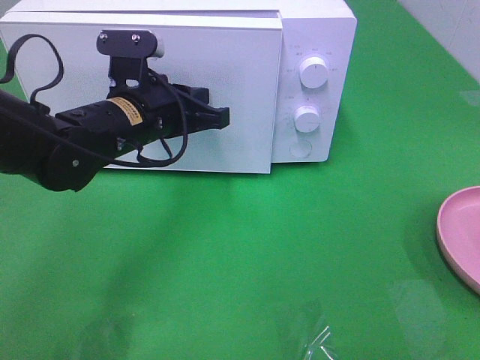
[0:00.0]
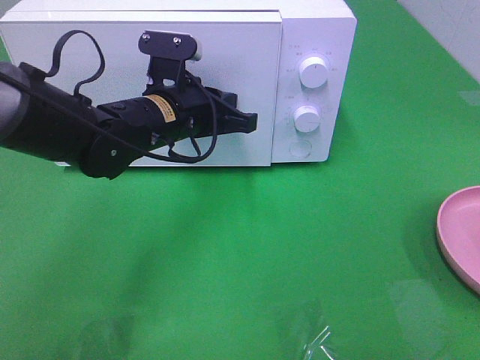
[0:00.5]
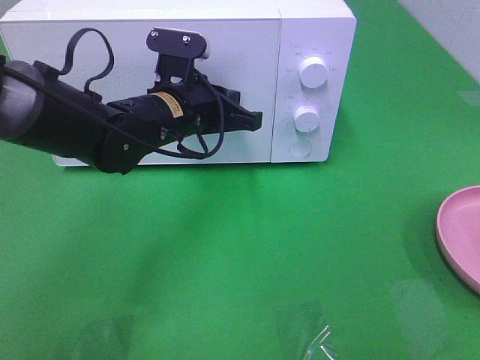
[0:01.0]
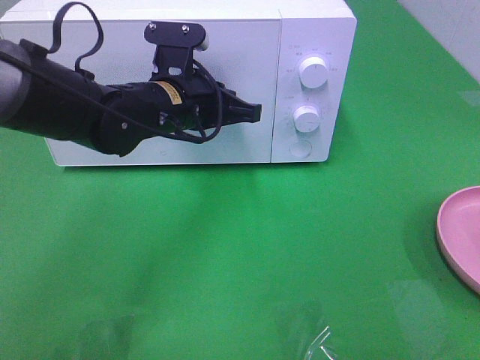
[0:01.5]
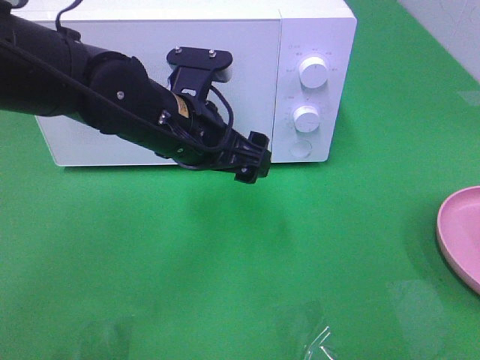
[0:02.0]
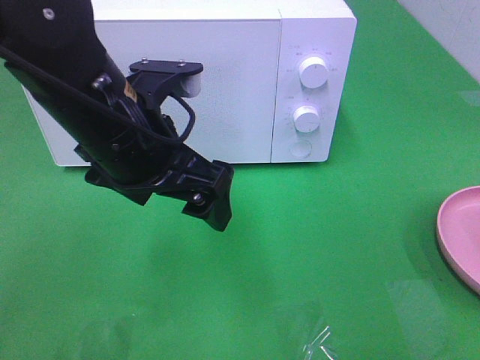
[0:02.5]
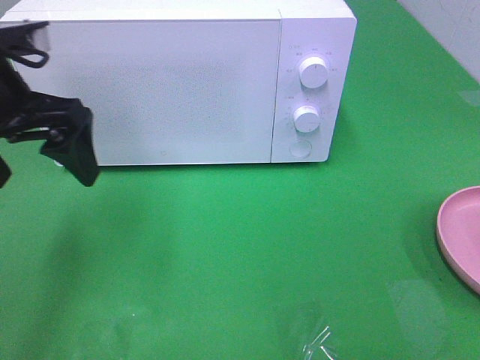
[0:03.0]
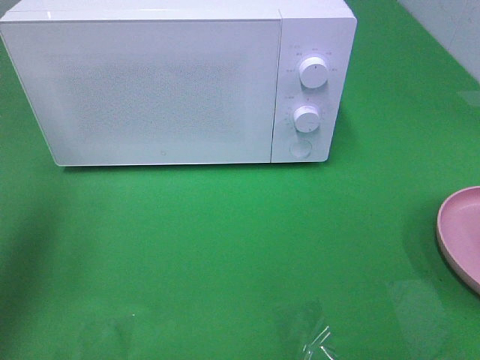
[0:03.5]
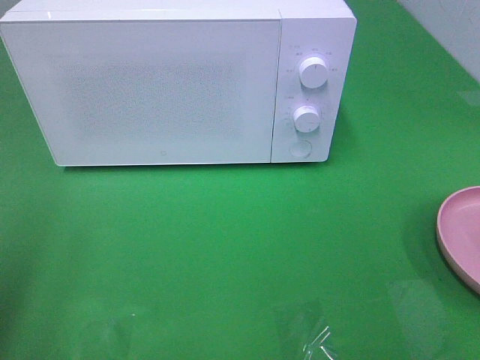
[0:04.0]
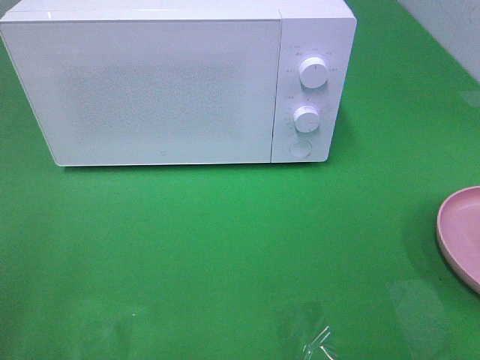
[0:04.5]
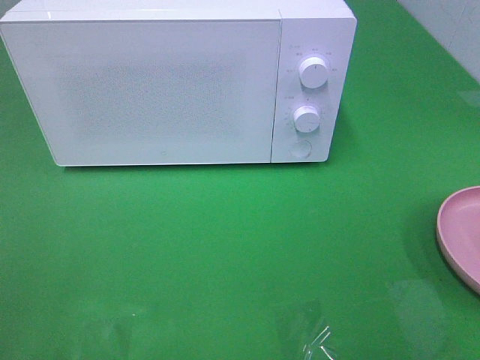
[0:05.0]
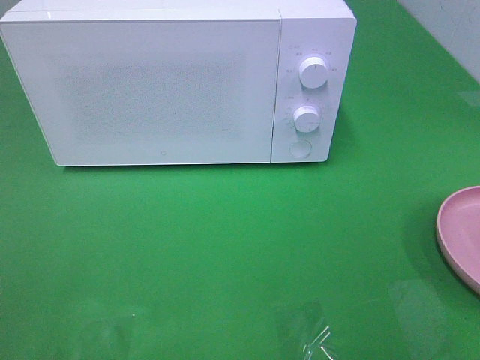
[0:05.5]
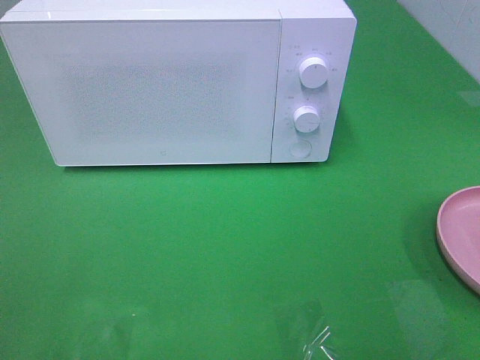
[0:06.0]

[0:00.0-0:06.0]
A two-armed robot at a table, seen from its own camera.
Task of the whole recording: Heat the burger.
0:00.0 to 0:02.0: The left gripper moves roughly 5 cm, and opens its fingers.
0:02.0 to 0:04.0: The left gripper heads to the left and backward, covering approximately 30 cm.

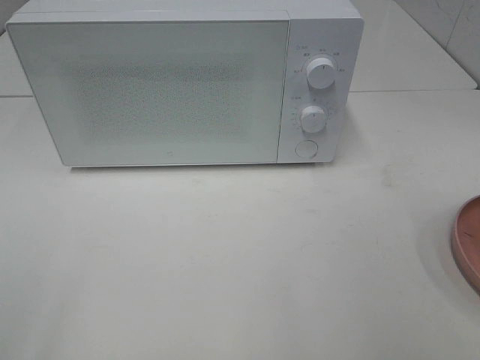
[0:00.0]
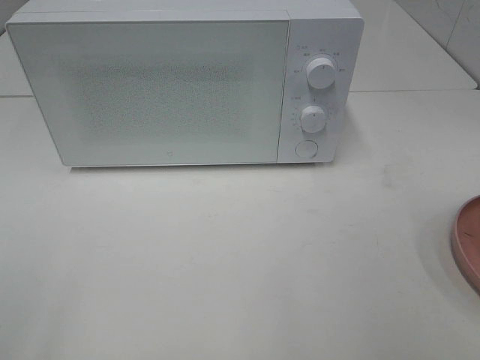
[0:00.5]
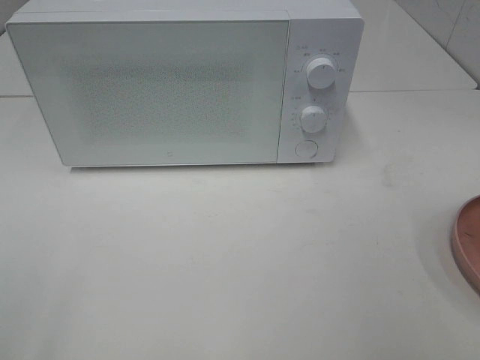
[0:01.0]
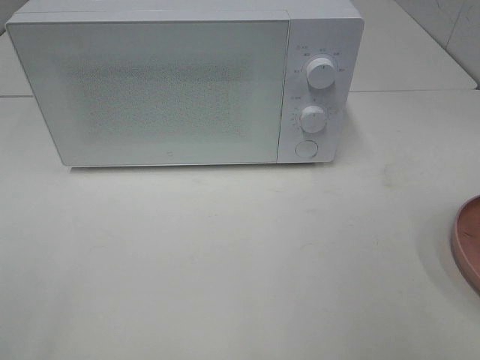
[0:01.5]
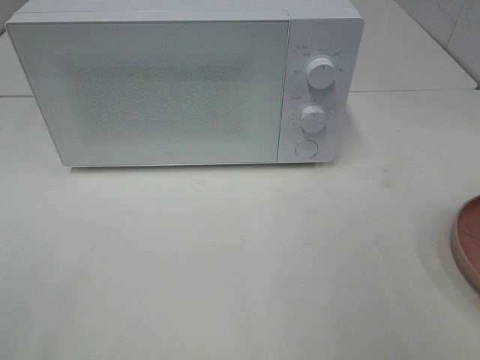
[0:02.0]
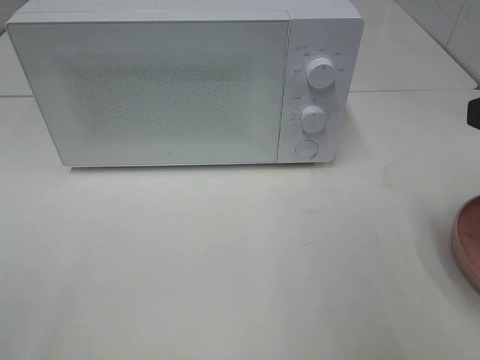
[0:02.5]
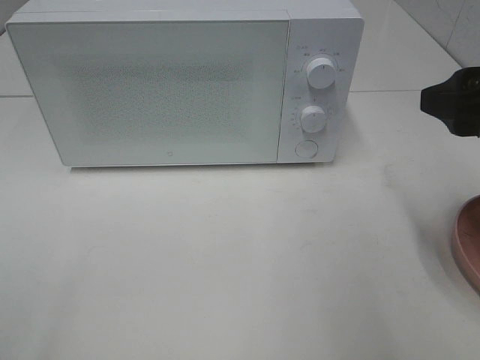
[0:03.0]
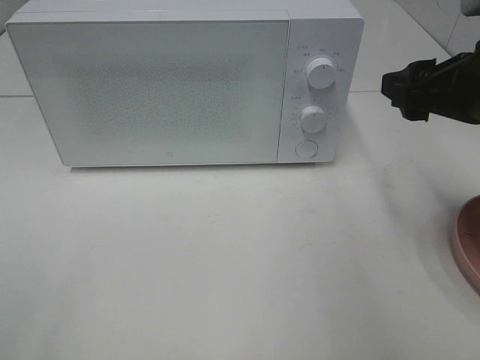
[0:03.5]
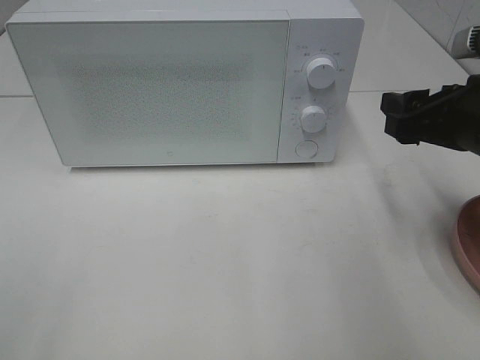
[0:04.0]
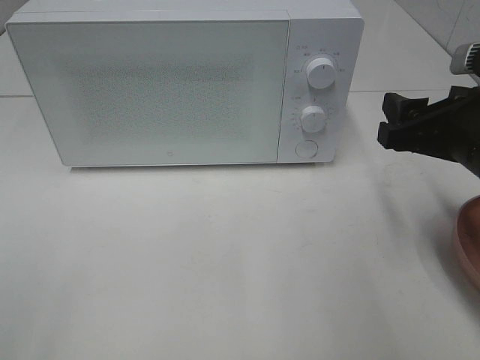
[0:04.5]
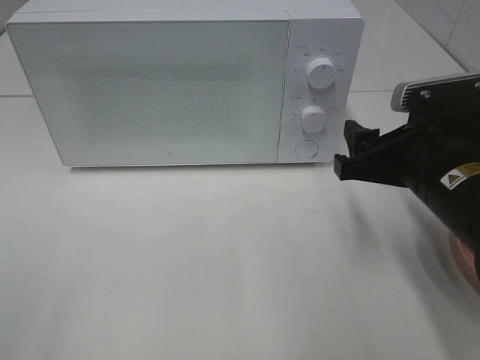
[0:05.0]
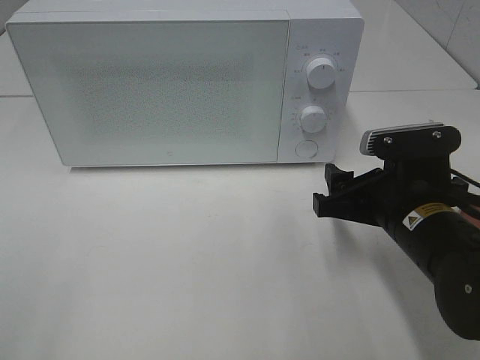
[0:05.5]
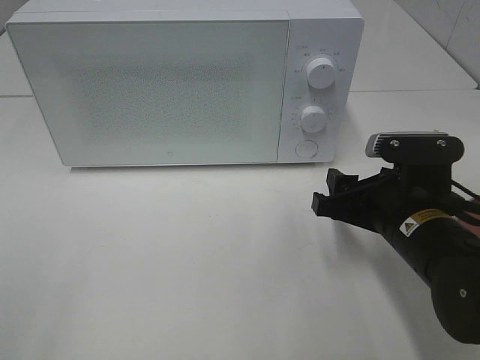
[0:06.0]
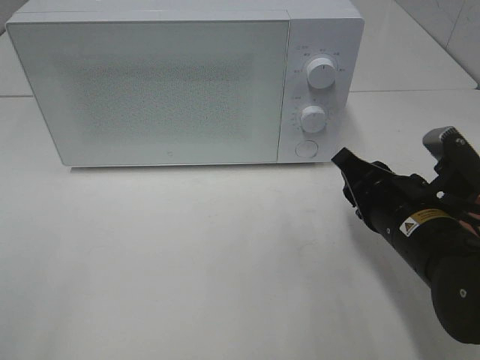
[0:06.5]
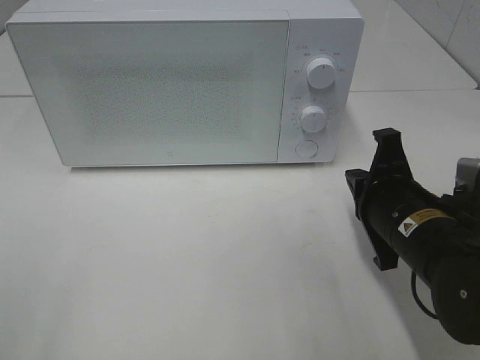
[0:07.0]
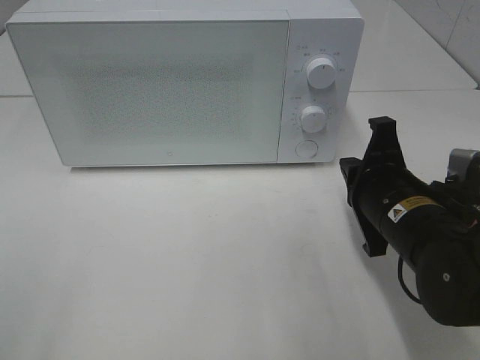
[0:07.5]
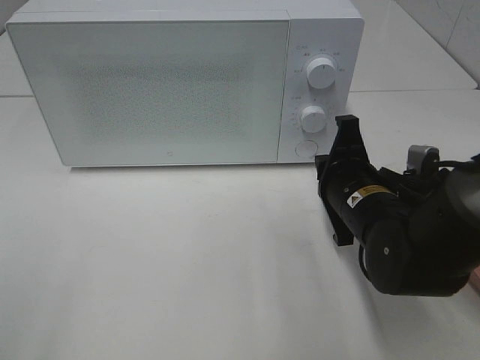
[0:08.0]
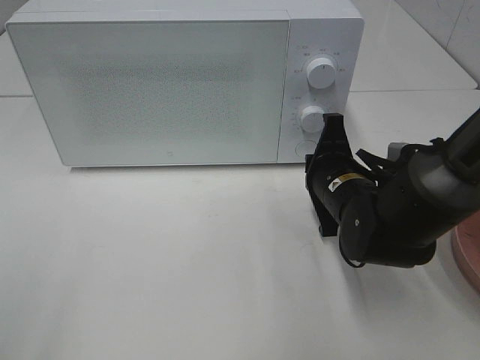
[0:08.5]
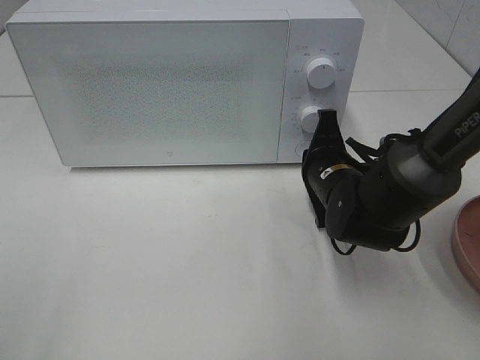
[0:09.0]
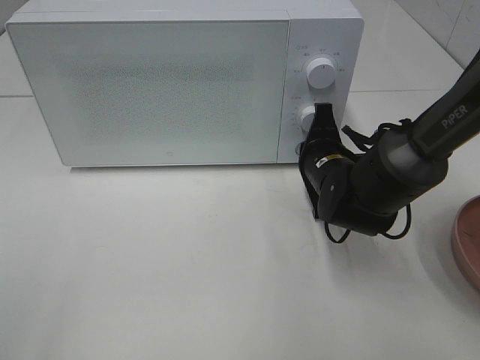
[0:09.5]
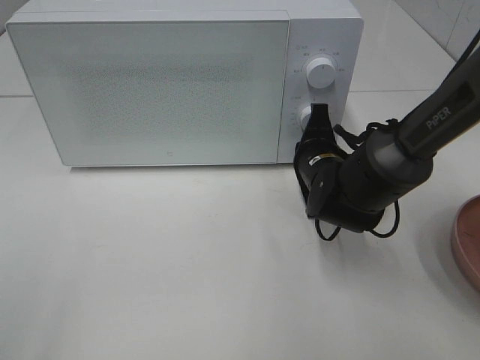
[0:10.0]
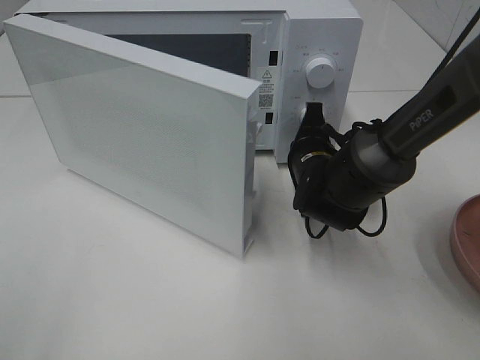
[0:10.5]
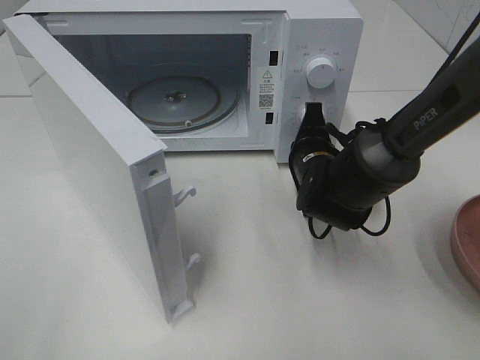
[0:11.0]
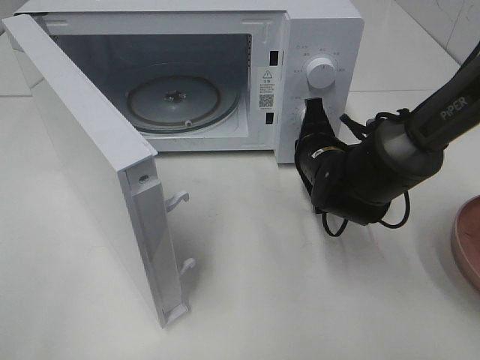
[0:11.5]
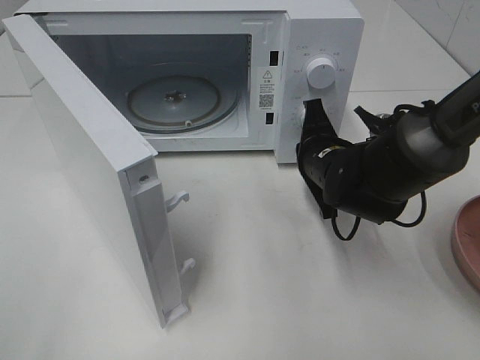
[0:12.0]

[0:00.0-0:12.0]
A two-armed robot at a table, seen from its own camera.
Task of the whole recording: Heat the burger.
0:02.0 to 0:04.0: The right gripper shifts some 15 cm forward and downward.
0:04.0 to 0:06.0: The right gripper heads downward and to the left, covering some 10 cm.
0:06.0 to 0:08.0: The right gripper moves some 5 cm, and closes up.
0:08.0 to 0:10.0: The right gripper shifts about 10 cm forward.

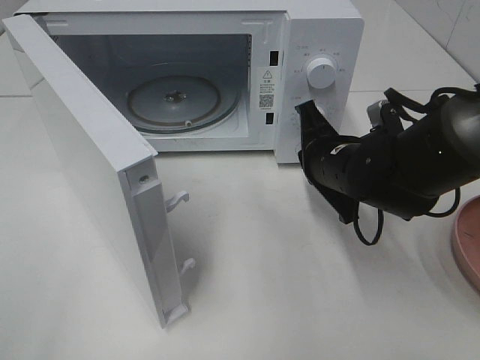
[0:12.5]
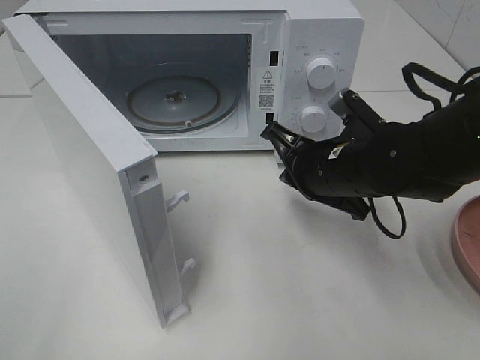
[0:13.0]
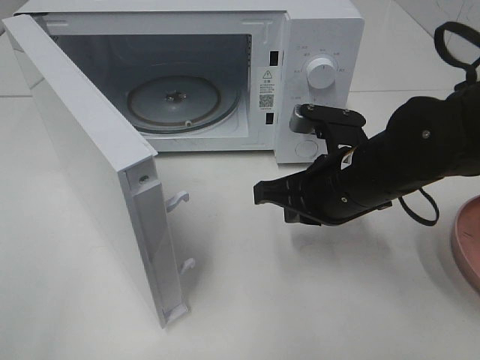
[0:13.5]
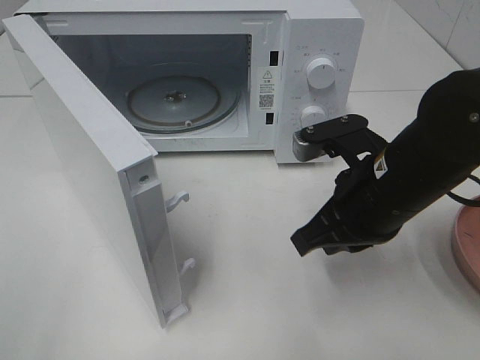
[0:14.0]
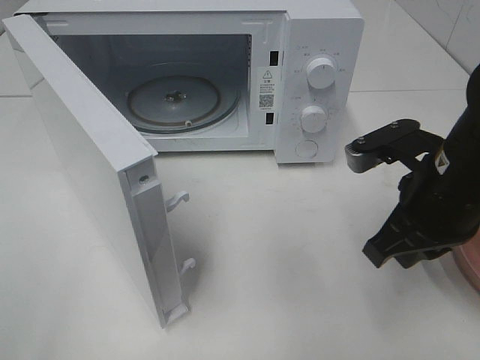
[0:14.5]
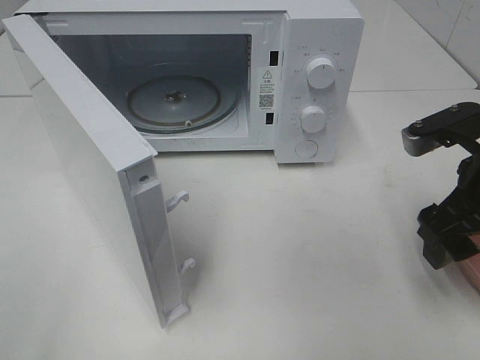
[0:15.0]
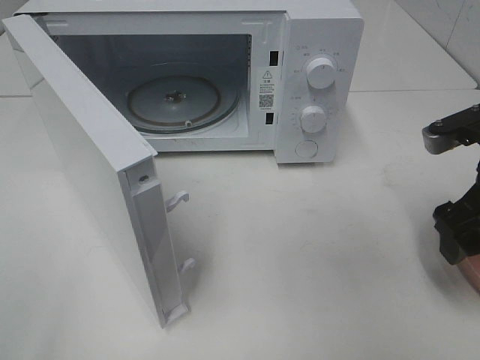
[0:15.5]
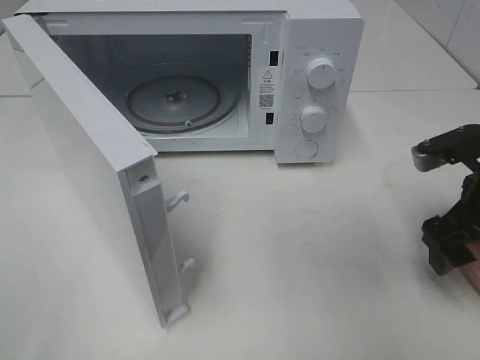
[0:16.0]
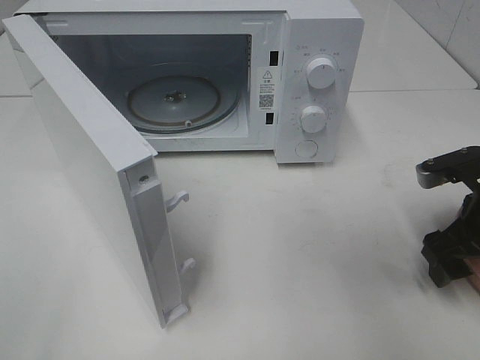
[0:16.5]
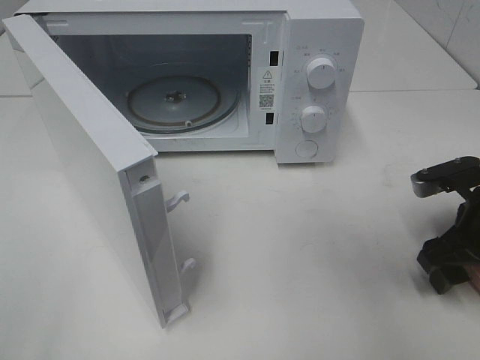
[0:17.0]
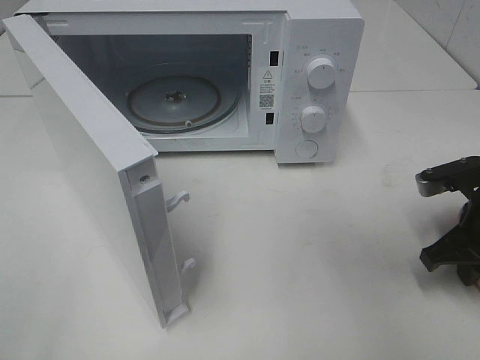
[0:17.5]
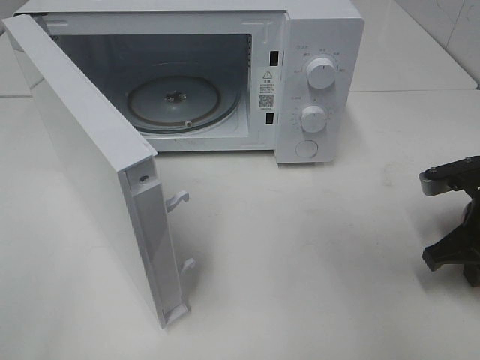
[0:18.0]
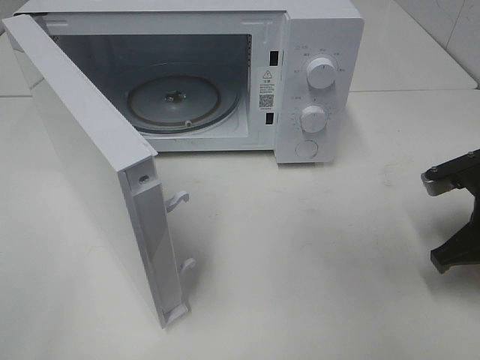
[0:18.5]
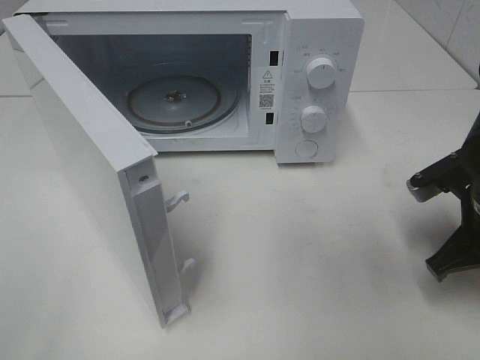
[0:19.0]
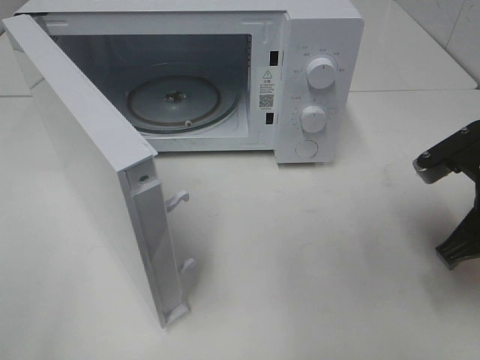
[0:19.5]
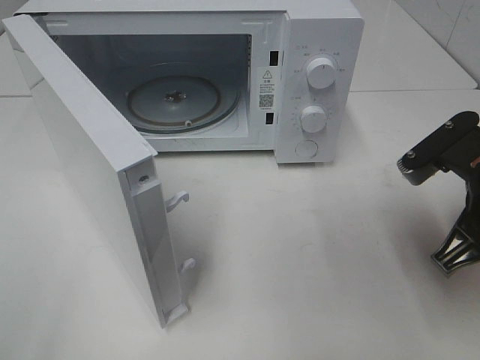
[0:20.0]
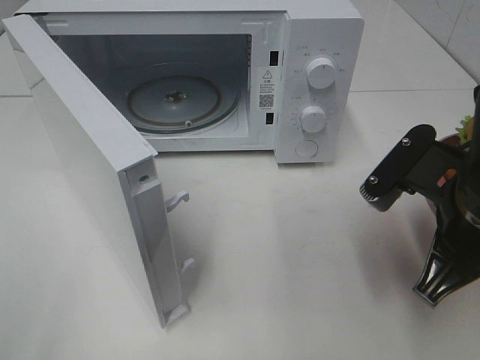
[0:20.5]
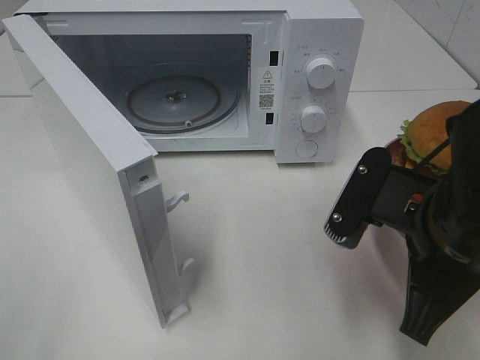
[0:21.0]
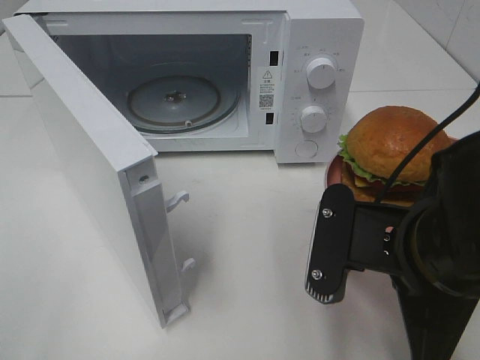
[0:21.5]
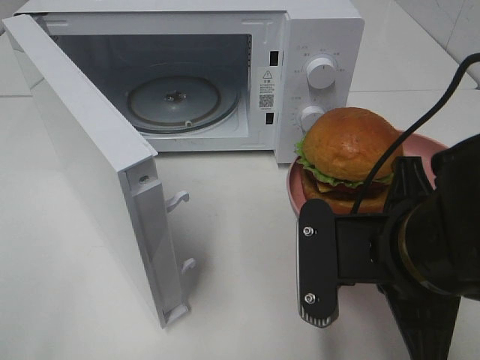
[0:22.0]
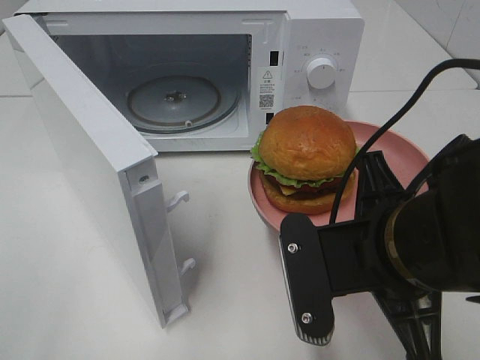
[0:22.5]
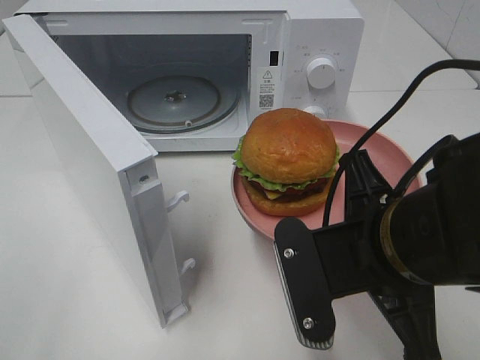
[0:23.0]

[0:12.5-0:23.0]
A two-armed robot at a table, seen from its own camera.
Task of the whole recording: Heat the burger.
Step, 0:12.5 to 0:18.5: Right hand: grab the plate with the hamburger.
0:12.5 to 0:14.5: The right gripper travels backward, upward and to the right by about 10 cm.
0:14.5 to 0:16.5: The right gripper is displaced to the right and downward by about 10 cm, and opens.
0:16.5 to 0:19.0: The right gripper closes its fingers.
0:19.0 to 0:21.0: The right gripper shifts approximately 15 cm to the left, backward and upward.
